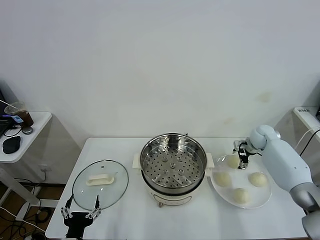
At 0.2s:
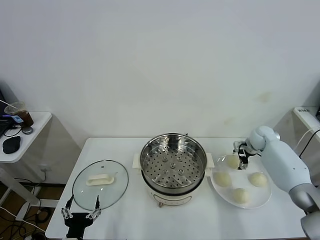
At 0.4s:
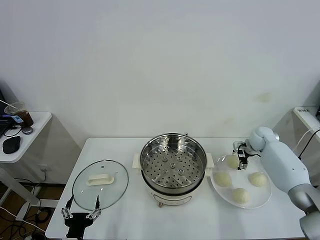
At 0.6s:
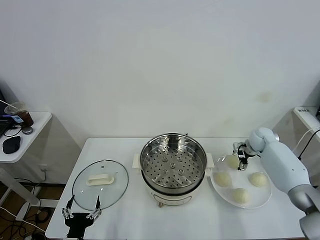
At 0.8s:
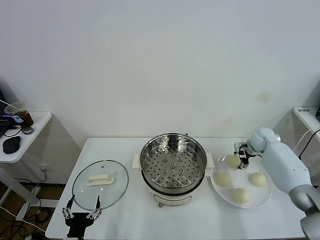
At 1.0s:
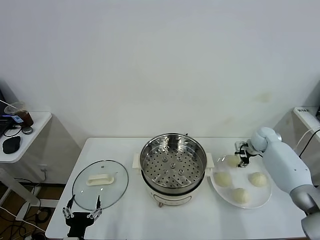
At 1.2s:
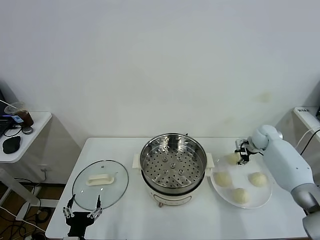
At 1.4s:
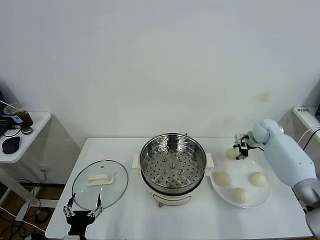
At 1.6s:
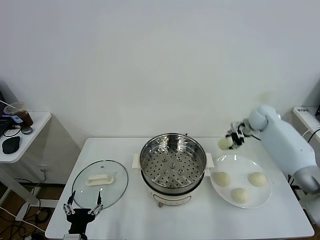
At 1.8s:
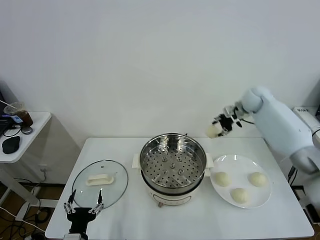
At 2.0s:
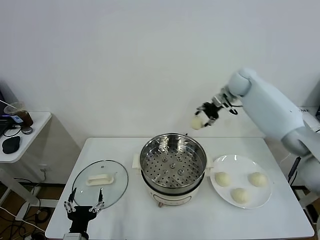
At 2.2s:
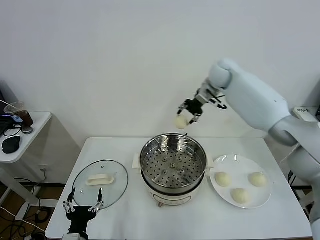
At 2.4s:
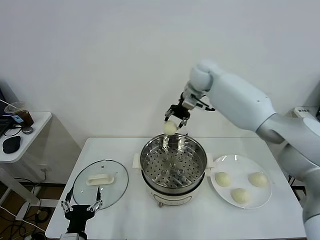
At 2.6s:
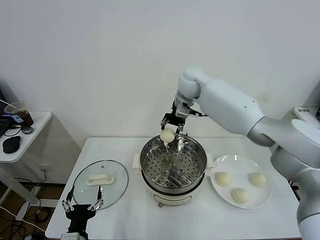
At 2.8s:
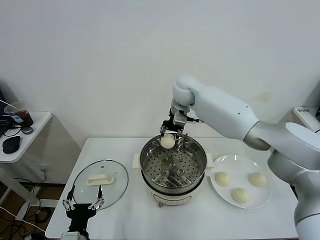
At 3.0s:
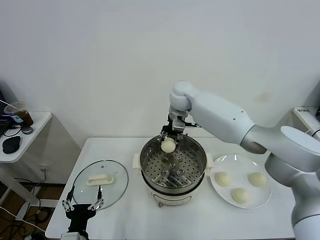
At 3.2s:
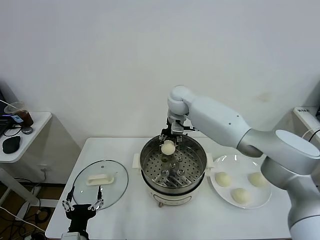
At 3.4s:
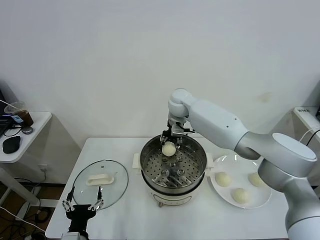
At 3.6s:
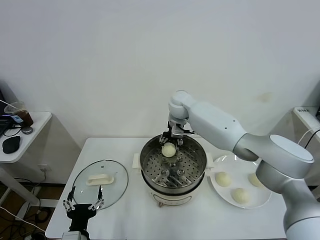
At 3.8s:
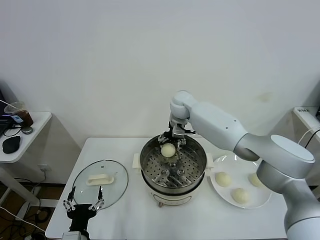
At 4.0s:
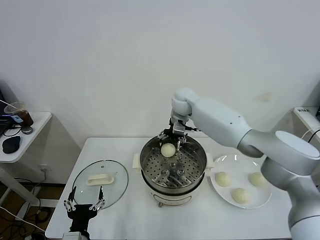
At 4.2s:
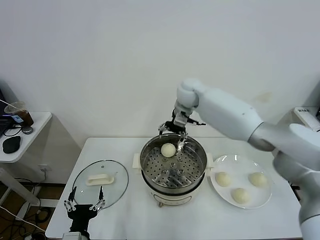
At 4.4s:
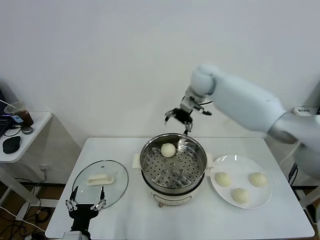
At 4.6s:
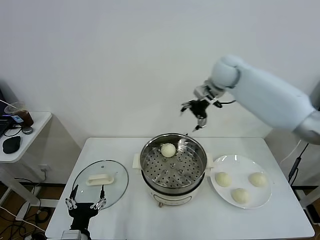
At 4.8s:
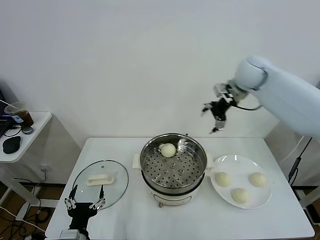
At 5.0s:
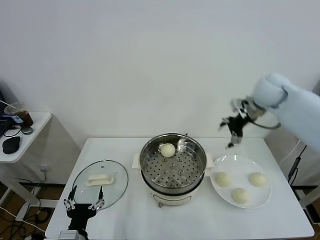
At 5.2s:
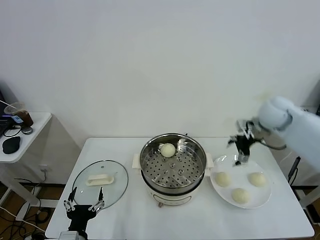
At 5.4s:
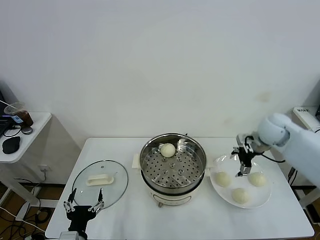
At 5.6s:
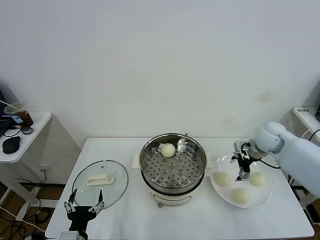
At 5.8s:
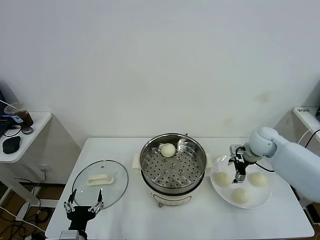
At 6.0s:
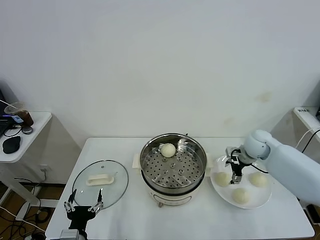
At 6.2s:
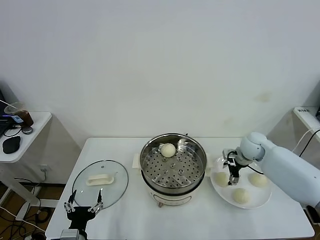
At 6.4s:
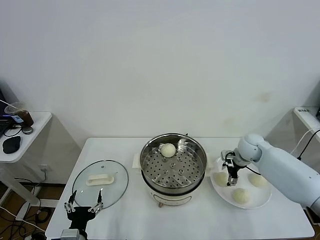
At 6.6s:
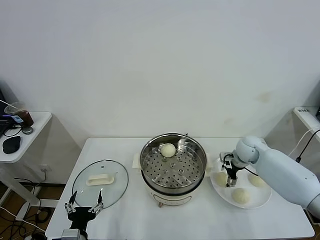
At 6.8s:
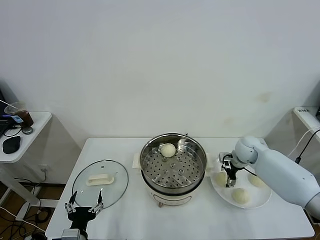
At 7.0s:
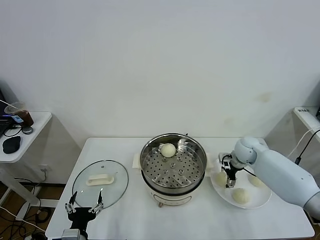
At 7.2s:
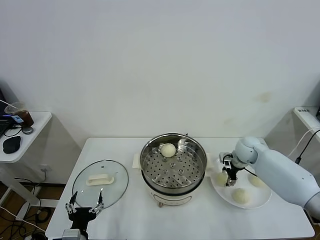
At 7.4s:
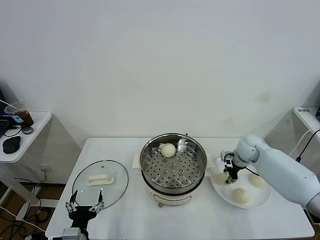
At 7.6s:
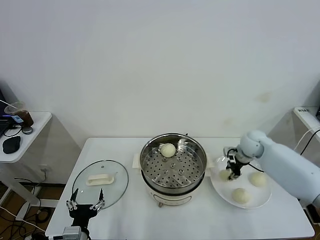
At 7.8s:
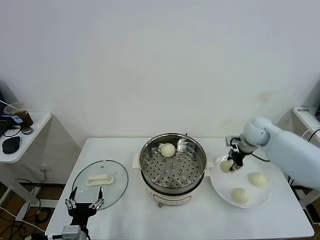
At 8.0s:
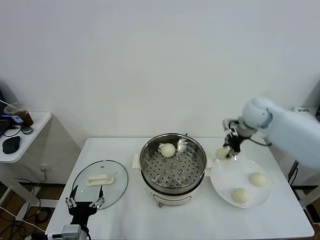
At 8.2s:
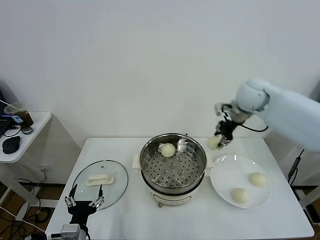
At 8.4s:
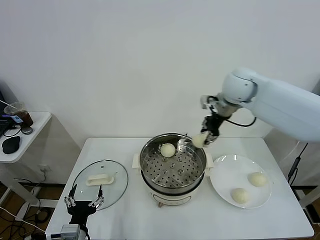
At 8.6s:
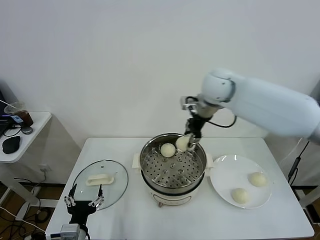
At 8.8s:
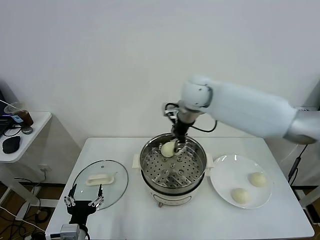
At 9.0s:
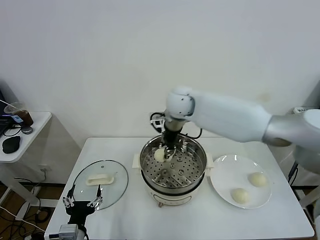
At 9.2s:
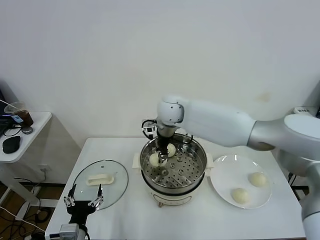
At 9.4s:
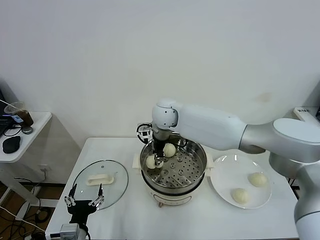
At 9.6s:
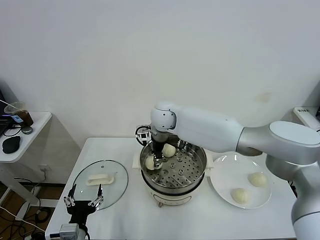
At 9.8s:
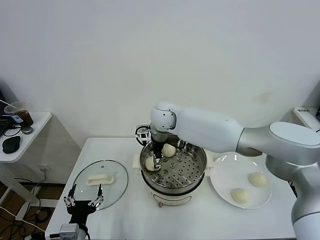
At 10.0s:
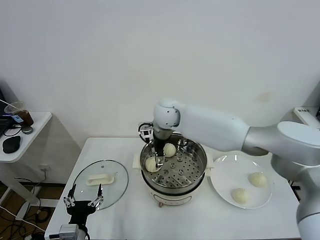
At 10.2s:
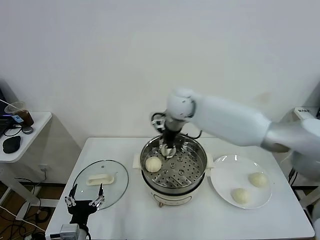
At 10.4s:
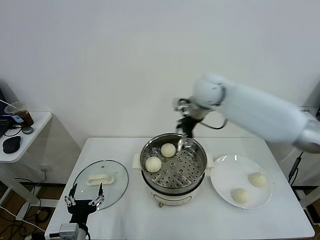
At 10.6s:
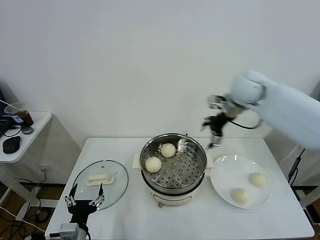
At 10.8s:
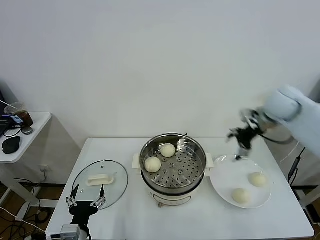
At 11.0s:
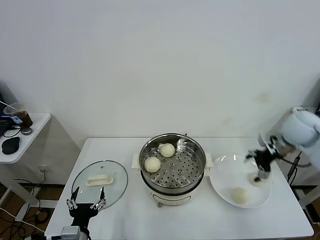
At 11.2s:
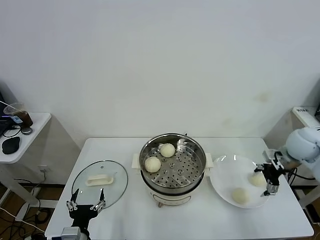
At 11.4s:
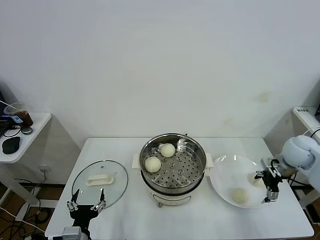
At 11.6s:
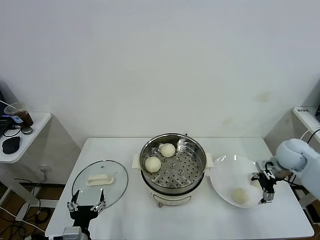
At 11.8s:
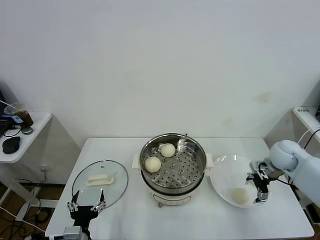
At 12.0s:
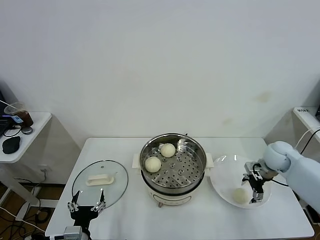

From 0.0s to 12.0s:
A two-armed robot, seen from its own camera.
Task of the whole recording: take steamed baozi put them in steamer.
Step, from 1.2s to 4.0s: Place the baozi on the steamer with right gripper.
Step, from 4.2s to 7.4s: Grasp the baozi in the plate with right gripper.
Step, from 7.6s to 10.0s: Place the baozi on the steamer with right gripper.
From 0.0s to 1.6s: The right gripper is displaced upward by some 10 cm, and closes.
From 1.6s to 3.0s: The right gripper travels to the left by some 30 cm.
From 3.0s to 4.4s: The right gripper travels to the right and upward by some 10 cm, and opens.
From 4.4s to 6.0s: The right gripper moves downward, to the right and backward, some 30 cm.
From 6.0s to 7.6s: The right gripper closes its fingers.
From 7.6s to 9.0s: The right gripper goes about 35 cm to the left and upward.
From 9.0s to 10.4s: The right gripper goes approximately 10 cm to the right, and opens up.
From 10.4s to 12.0s: The right gripper moves to the right and downward, roughly 35 cm.

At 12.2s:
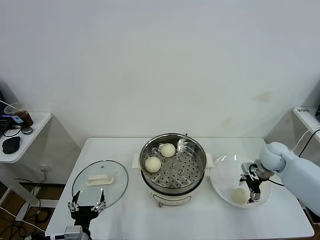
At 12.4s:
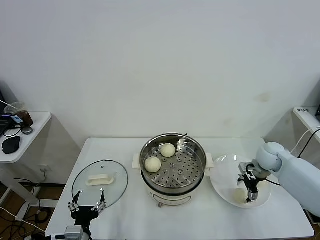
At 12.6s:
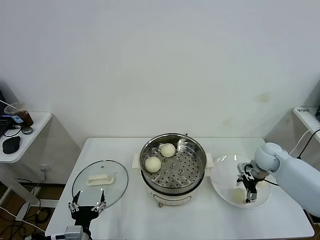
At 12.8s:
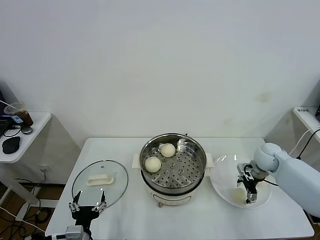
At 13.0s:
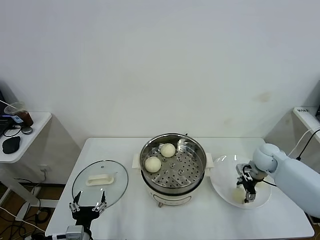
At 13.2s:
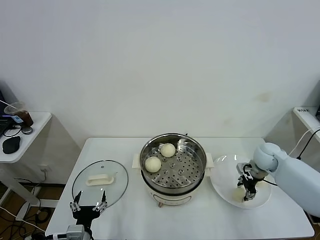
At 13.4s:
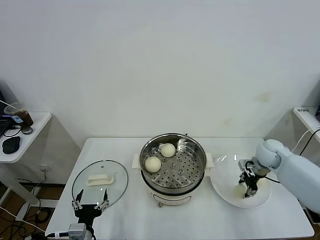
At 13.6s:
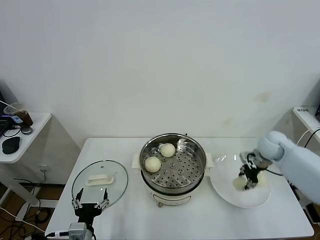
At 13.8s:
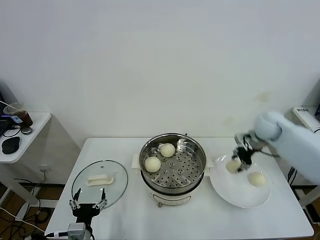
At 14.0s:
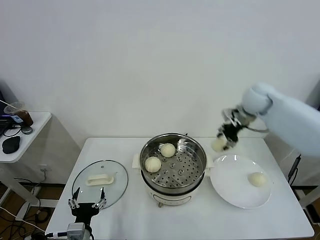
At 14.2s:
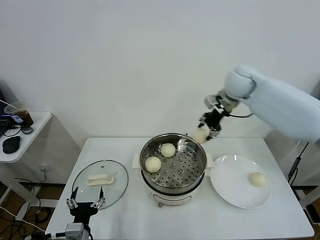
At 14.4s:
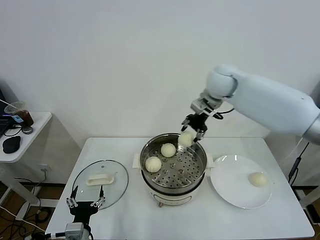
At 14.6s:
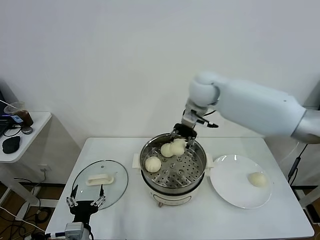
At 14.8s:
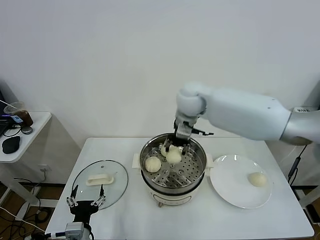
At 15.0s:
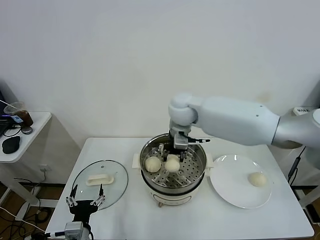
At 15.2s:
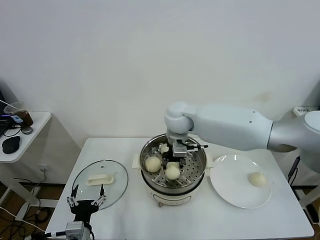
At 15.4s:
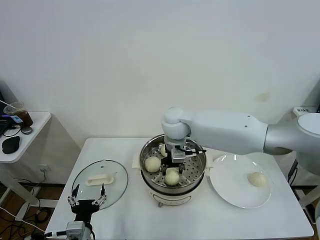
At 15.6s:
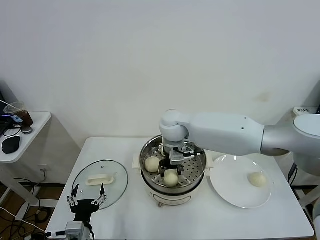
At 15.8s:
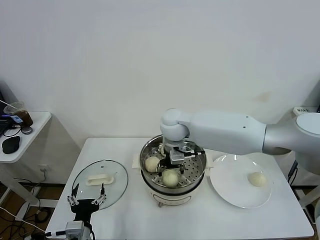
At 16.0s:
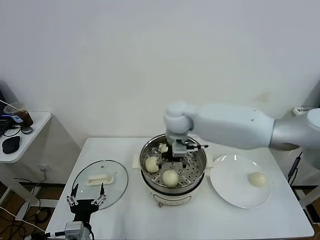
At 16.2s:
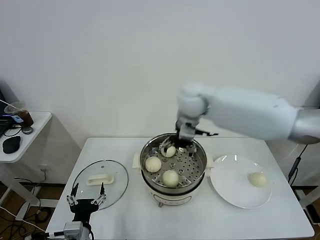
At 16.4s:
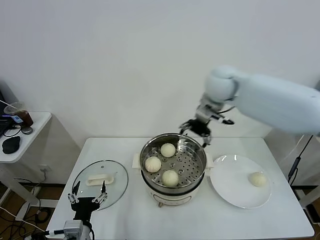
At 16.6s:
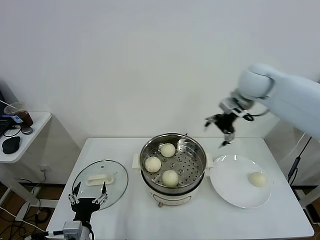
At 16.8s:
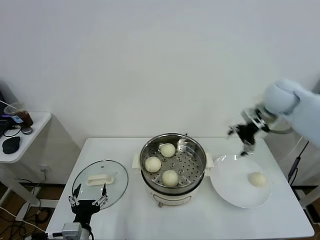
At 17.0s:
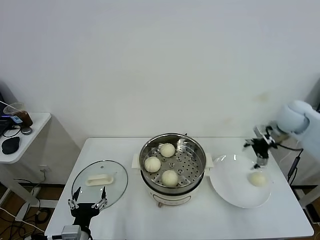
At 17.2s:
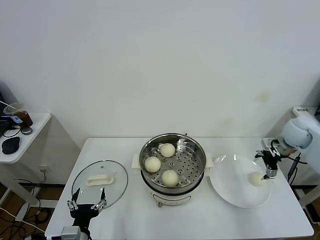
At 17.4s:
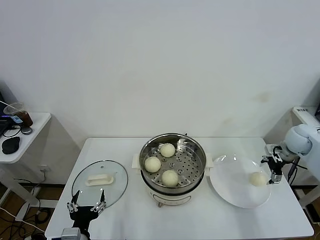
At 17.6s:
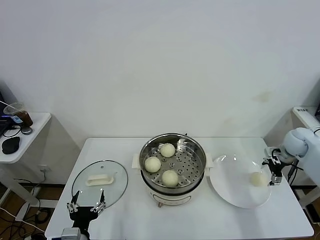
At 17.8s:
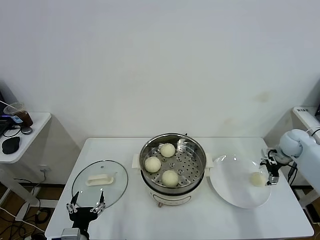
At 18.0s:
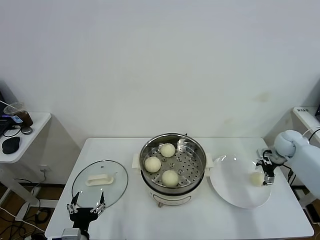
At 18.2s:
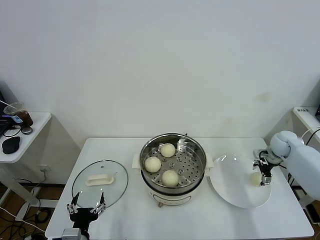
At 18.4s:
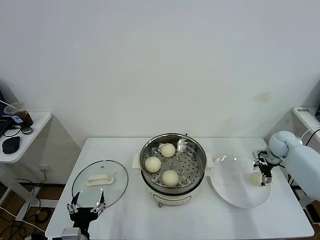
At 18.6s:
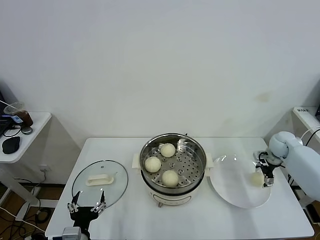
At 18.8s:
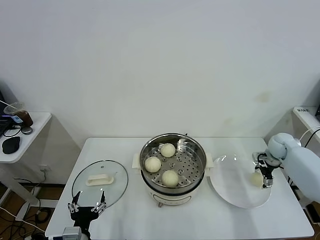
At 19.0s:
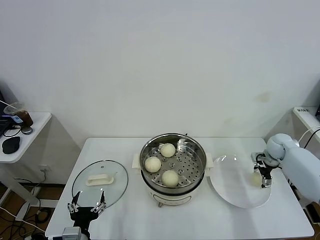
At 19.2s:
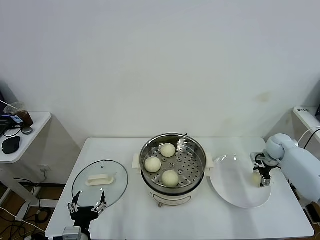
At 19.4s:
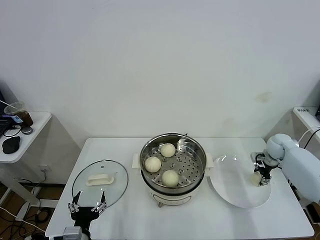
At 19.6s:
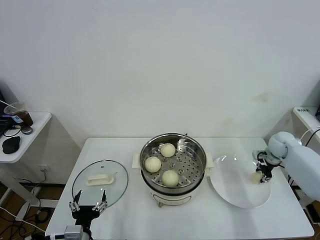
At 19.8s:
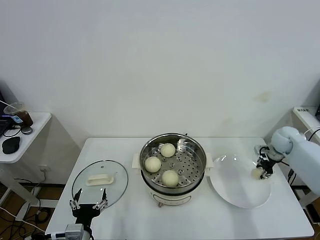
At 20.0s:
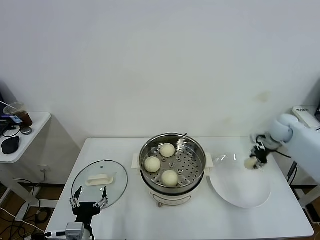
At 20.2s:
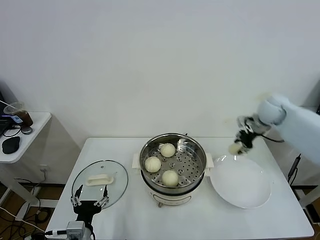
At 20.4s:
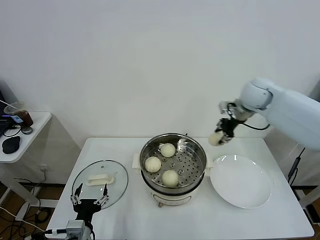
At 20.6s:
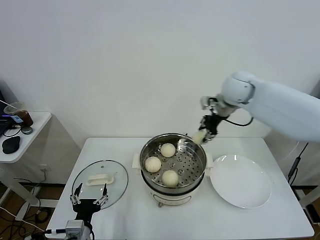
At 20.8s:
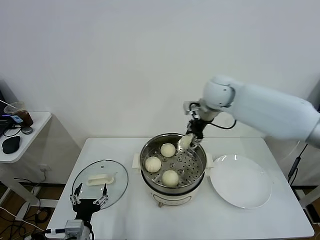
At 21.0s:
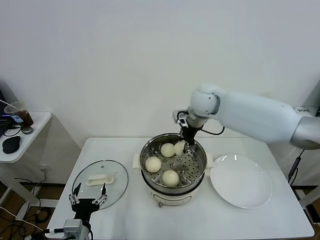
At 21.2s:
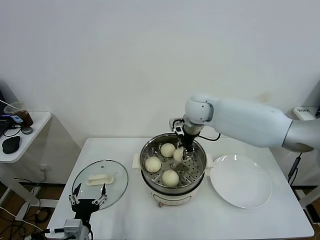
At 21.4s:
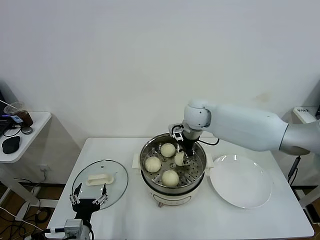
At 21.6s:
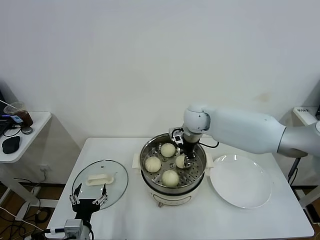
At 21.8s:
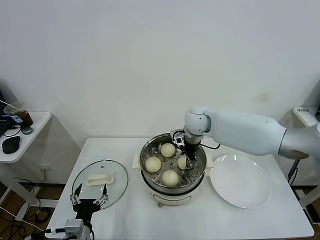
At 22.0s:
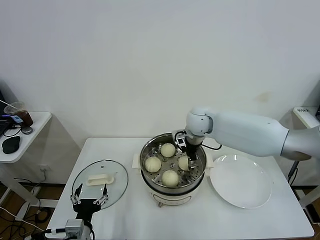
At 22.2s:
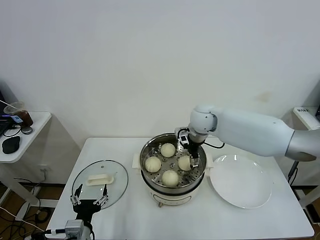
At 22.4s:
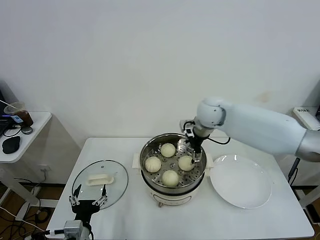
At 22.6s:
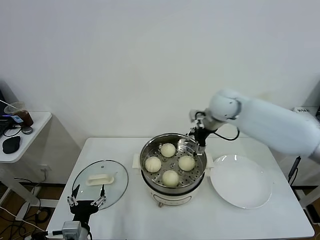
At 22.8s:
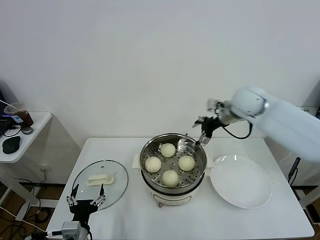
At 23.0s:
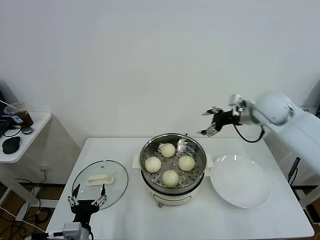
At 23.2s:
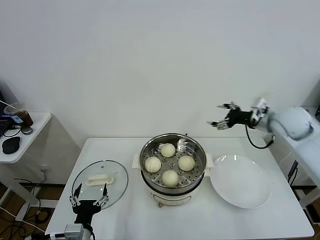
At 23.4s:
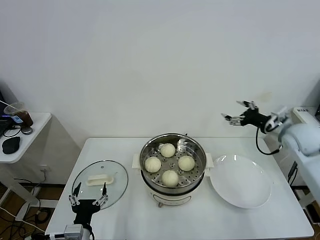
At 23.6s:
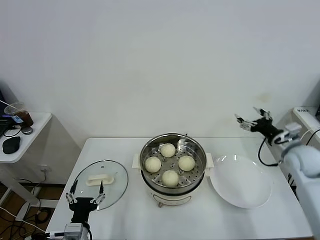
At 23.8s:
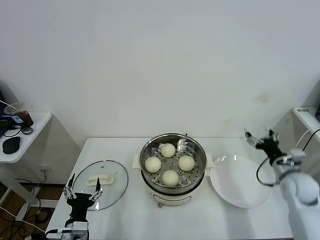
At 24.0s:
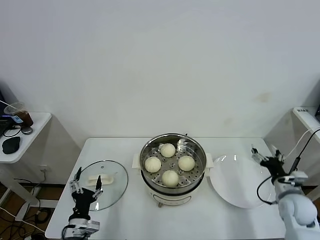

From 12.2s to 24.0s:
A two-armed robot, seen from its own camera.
Task of the whole recording: take steamed baozi put them in steamer.
Step, from 13.4s to 15.8s: Place the baozi on the steamer with right gripper.
Step, from 16.2s to 19.6s: Grasp the baozi in the plate with right gripper.
Step, from 19.8s to 22.2s: Place the baozi on the steamer with right gripper.
From 12.2s to 13.6s: The right gripper closes its fingers.
From 13.6s to 15.2s: The right gripper heads to the left, covering roughly 35 cm.
From 15.2s to 16.6s: The right gripper travels to the right and upward by some 25 cm, and opens.
From 16.6s to 18.2s: The right gripper moves downward and to the right, roughly 35 cm.
From 18.2s to 19.6s: The right gripper closes.
From 19.6s to 21.0s: The right gripper heads to the left and upward, covering roughly 40 cm.
From 21.0s to 22.6s: The right gripper moves about 10 cm downward and comes back, and opens its fingers.
From 22.6s to 24.0s: The right gripper travels to the right, backward and downward by roughly 40 cm. Meanwhile the left gripper ends up roughly 5 cm from where it was.
